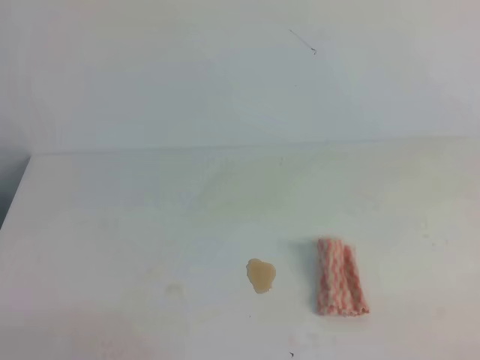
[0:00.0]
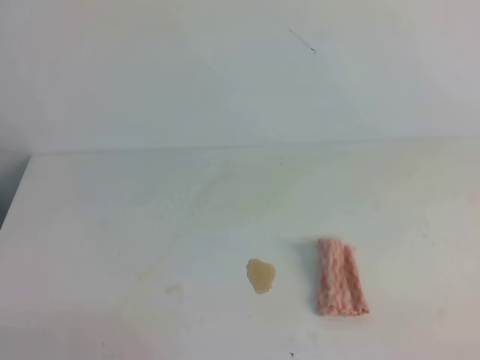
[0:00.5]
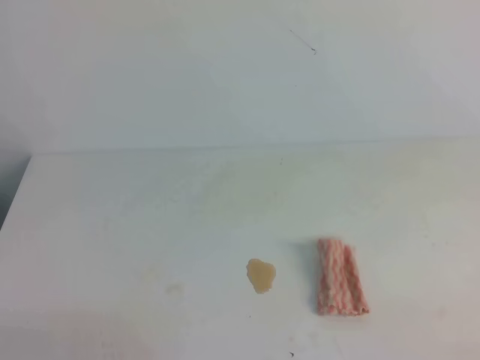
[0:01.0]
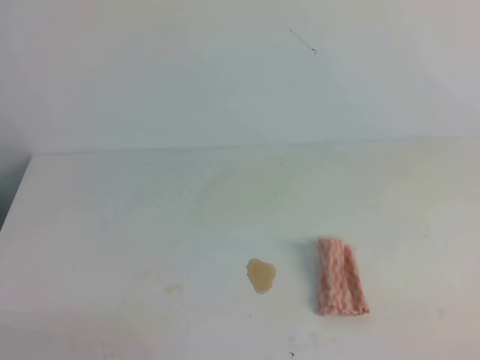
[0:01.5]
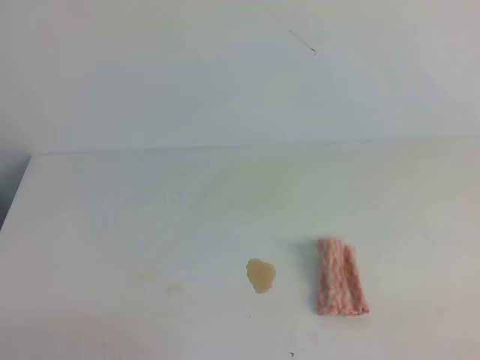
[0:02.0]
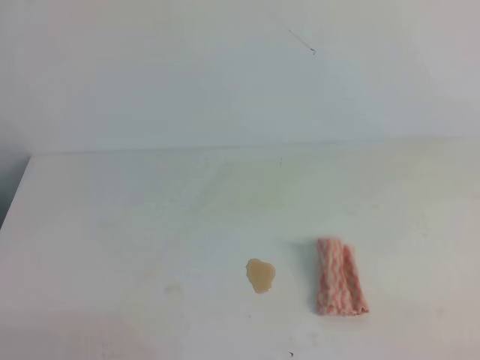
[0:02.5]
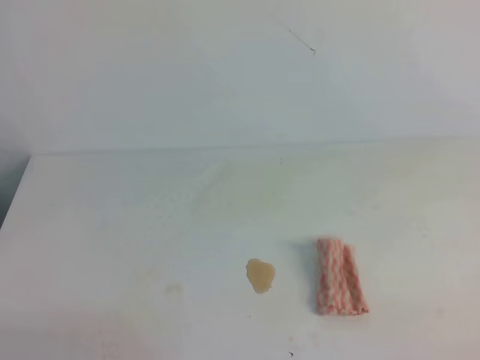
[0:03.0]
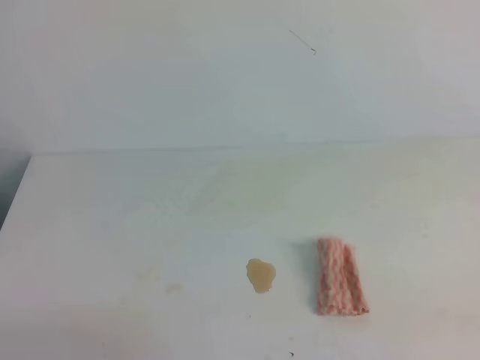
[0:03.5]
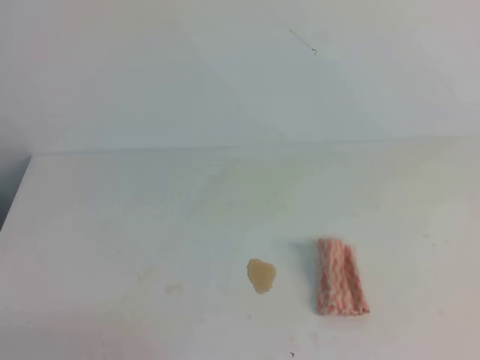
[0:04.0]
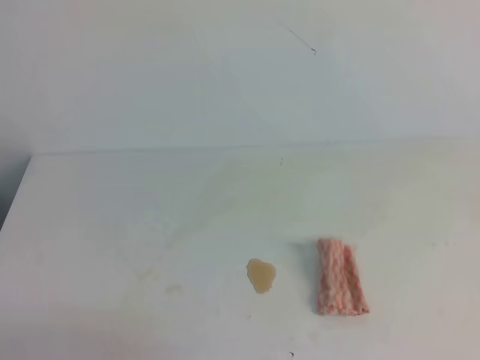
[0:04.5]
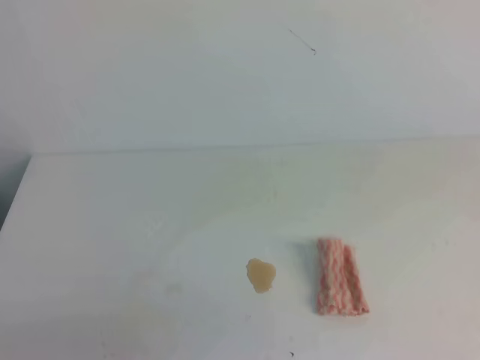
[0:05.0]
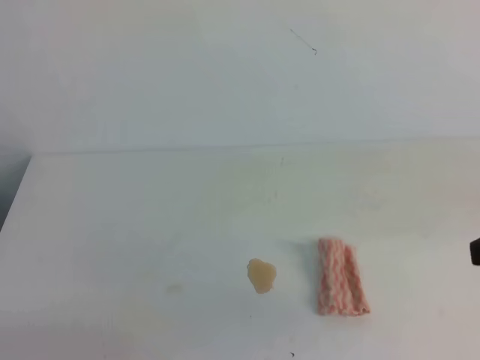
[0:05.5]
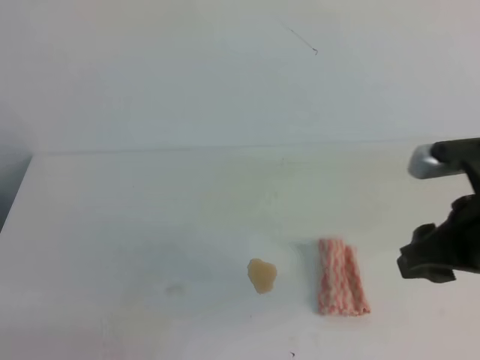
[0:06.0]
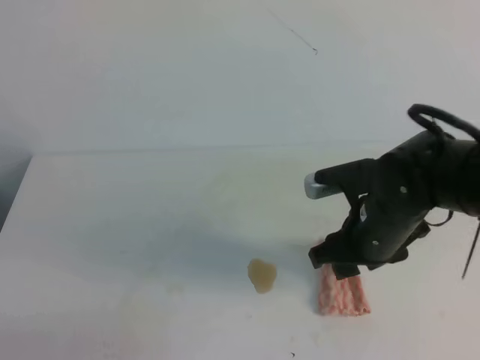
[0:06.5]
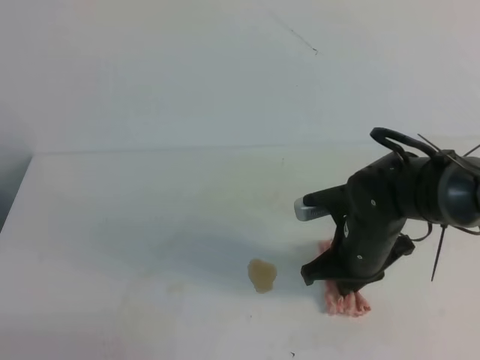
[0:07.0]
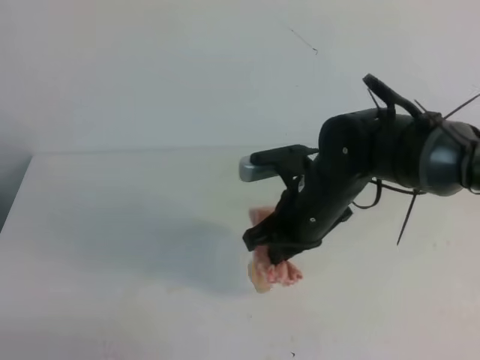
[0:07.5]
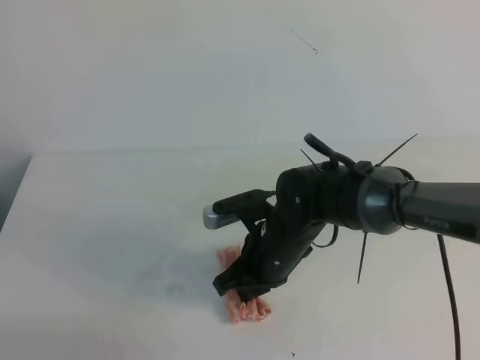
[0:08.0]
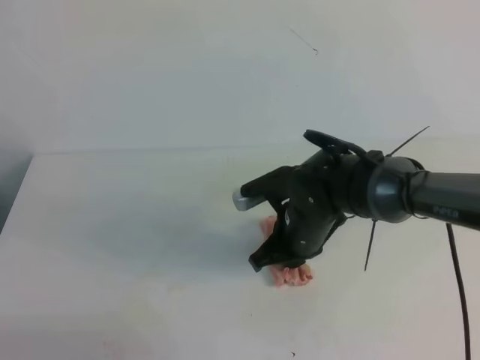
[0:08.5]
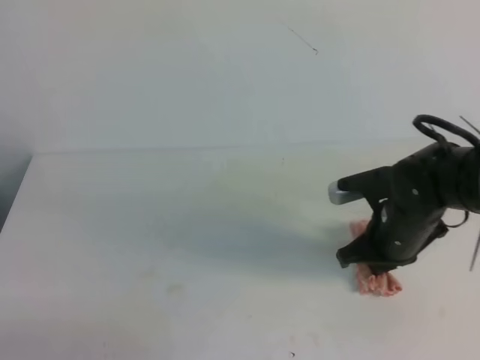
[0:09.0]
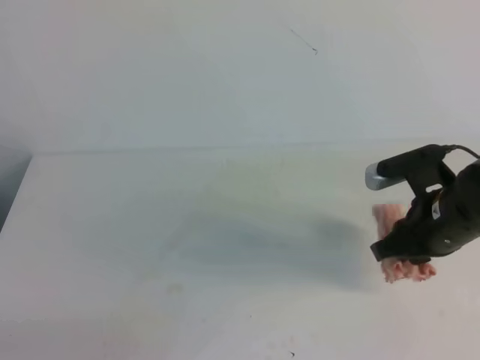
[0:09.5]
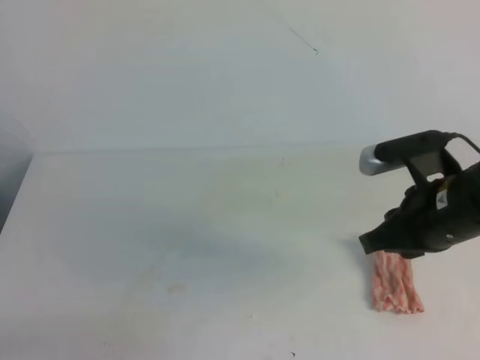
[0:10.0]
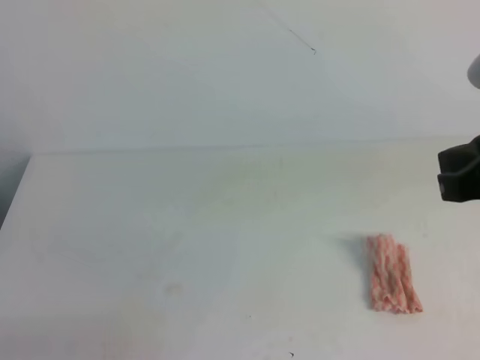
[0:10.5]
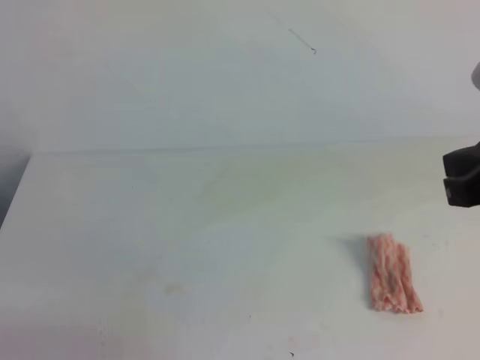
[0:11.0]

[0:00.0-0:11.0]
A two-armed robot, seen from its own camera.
0:00.0 to 0:02.0: Both grippers stay put.
0:05.5 to 0:07.5: The right gripper heads to the left, forward and downward, covering about 25 cm, and closes its fingers.
0:07.5 to 0:09.0: The right gripper goes roughly 10 cm to the right.
0:09.0 to 0:11.0: The right gripper is displaced upward and backward by approximately 25 cm, and opens and closes again.

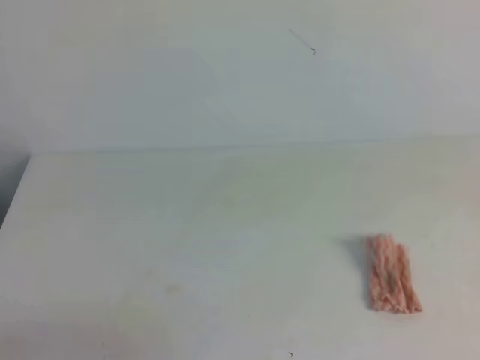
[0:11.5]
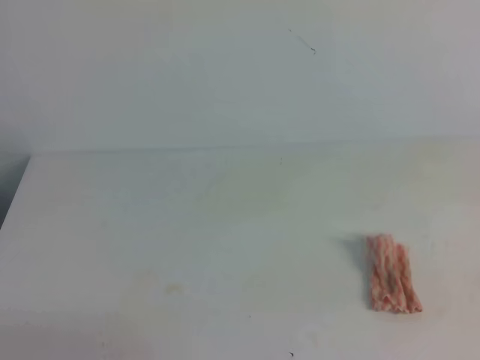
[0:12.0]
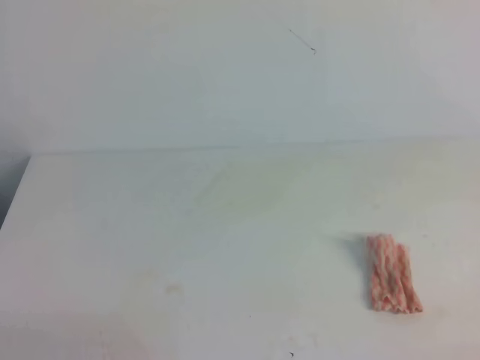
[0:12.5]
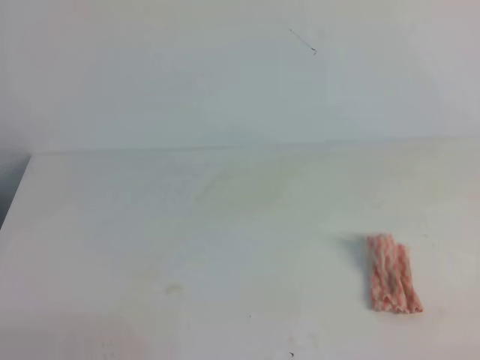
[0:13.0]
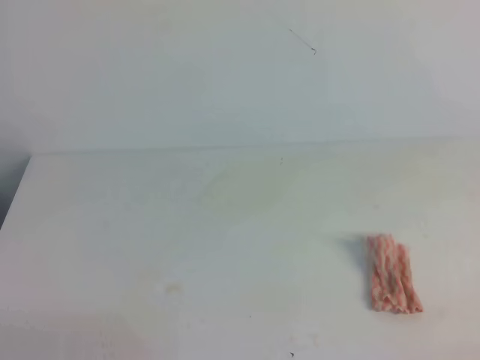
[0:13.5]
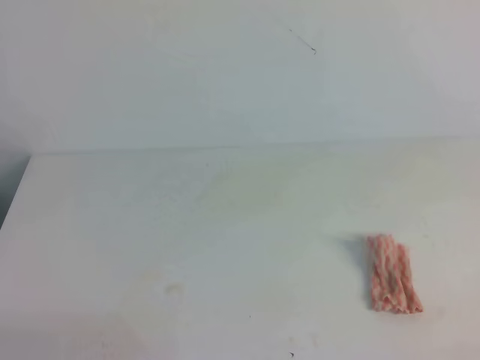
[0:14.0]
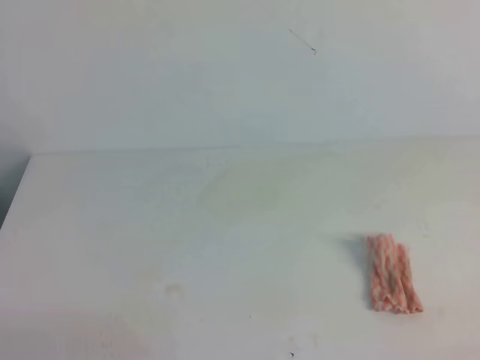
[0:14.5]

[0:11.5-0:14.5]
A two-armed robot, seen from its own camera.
0:13.0 to 0:14.5: Both grippers stay about where they are.
